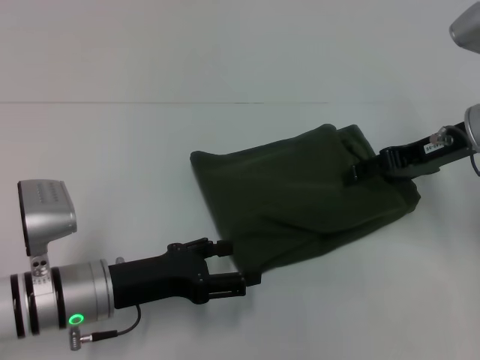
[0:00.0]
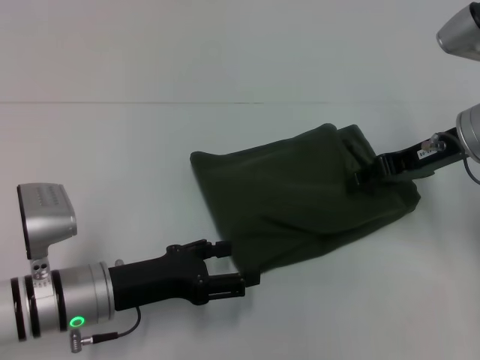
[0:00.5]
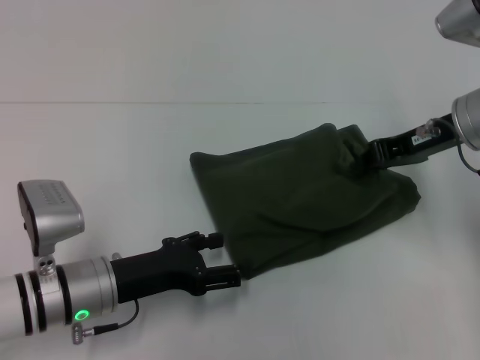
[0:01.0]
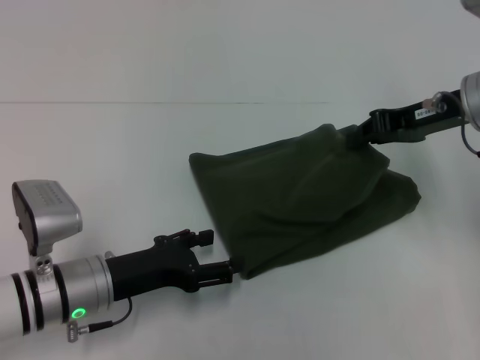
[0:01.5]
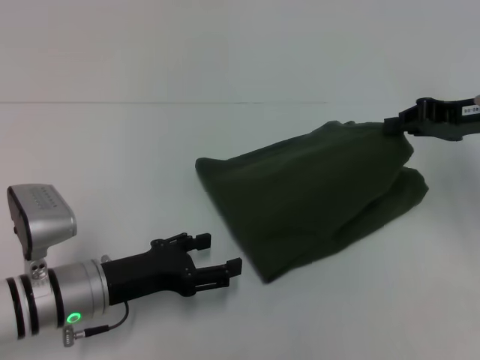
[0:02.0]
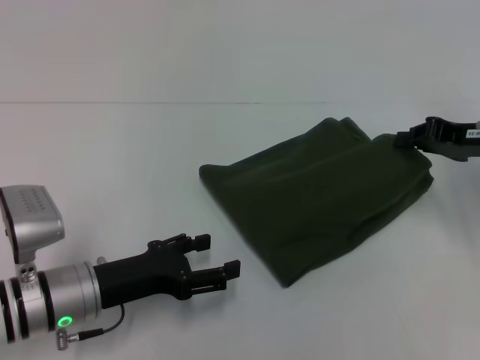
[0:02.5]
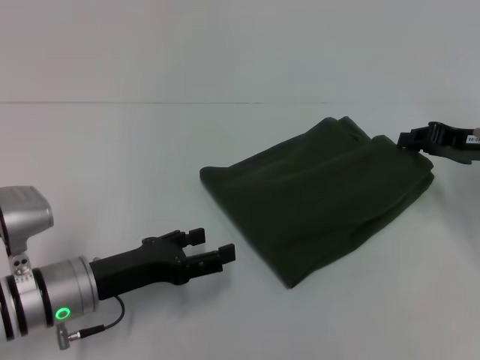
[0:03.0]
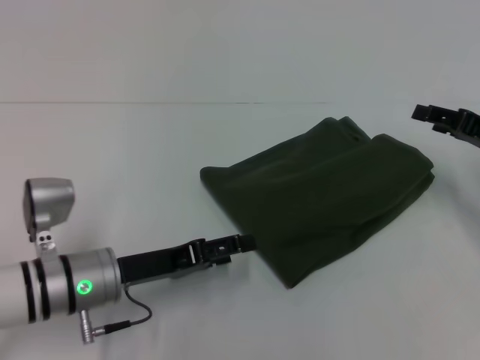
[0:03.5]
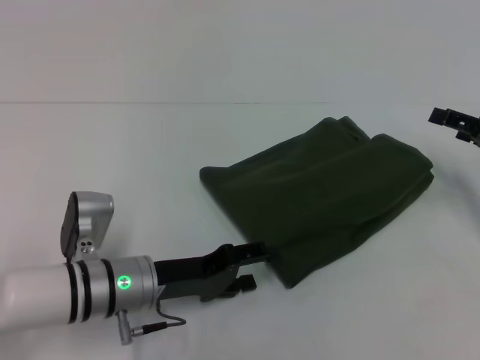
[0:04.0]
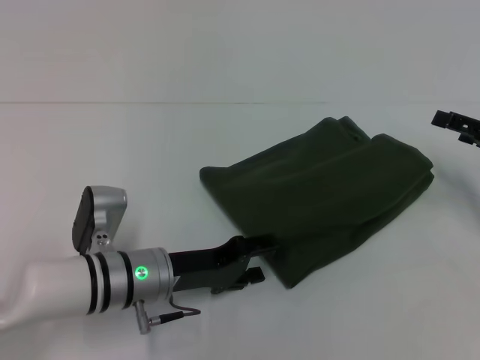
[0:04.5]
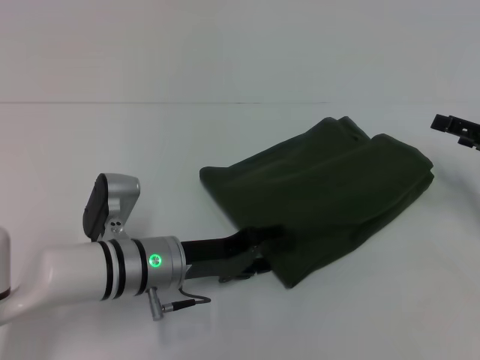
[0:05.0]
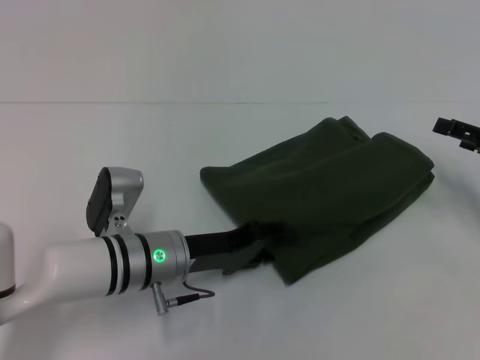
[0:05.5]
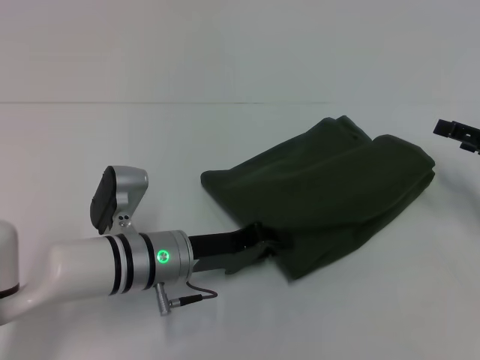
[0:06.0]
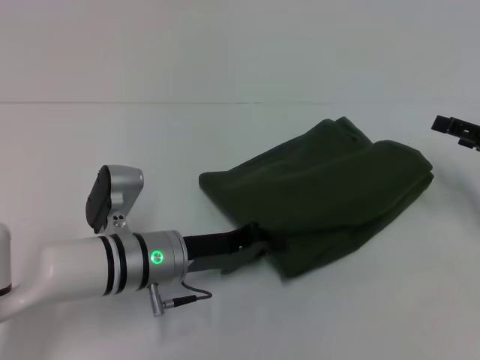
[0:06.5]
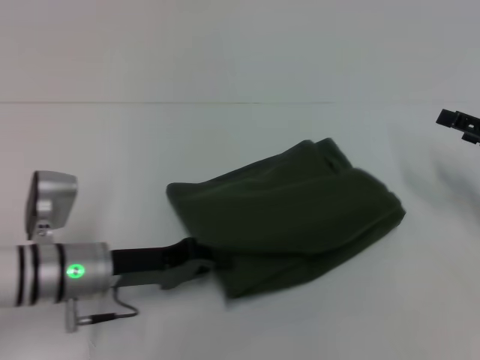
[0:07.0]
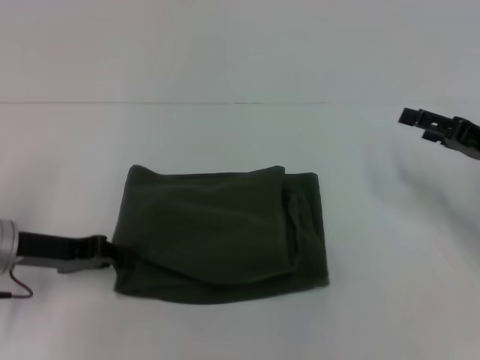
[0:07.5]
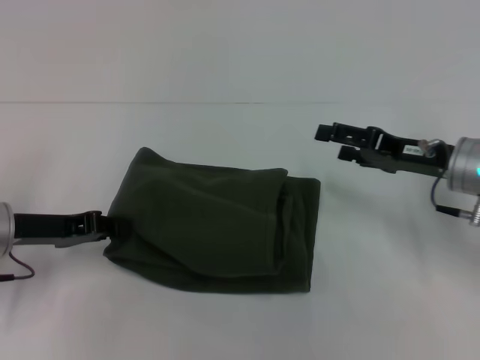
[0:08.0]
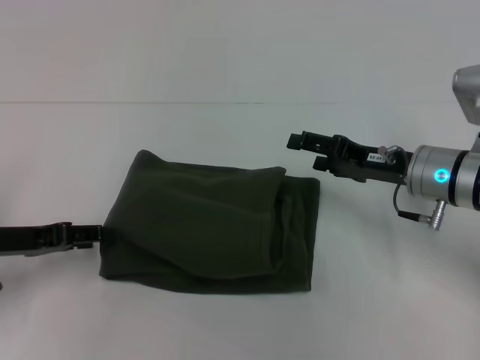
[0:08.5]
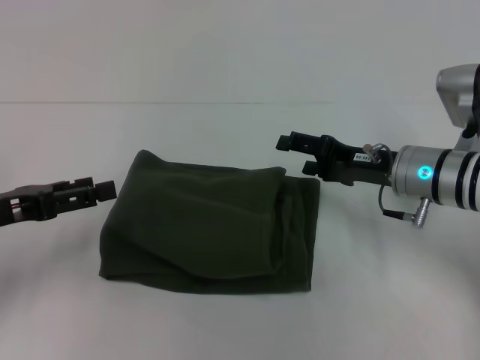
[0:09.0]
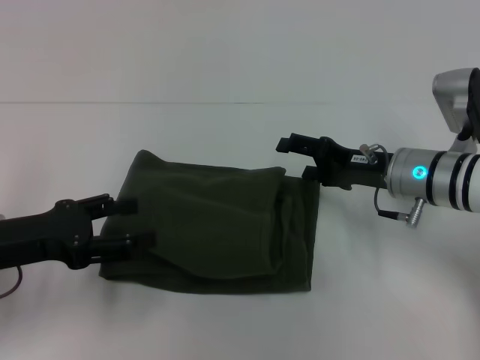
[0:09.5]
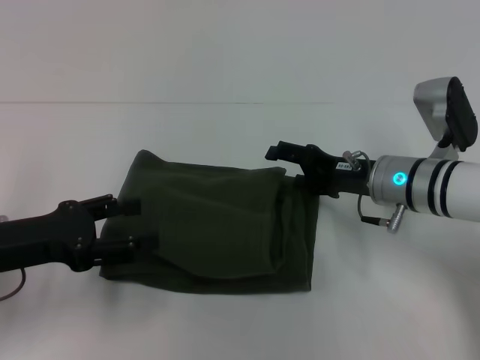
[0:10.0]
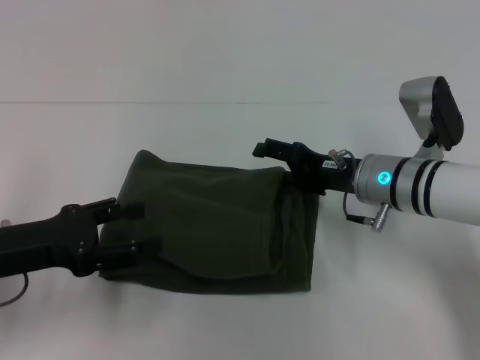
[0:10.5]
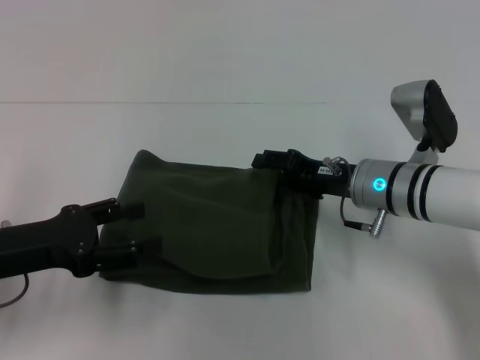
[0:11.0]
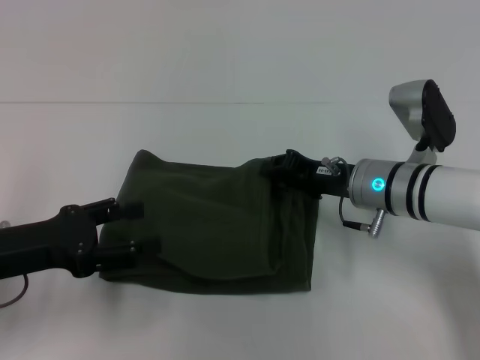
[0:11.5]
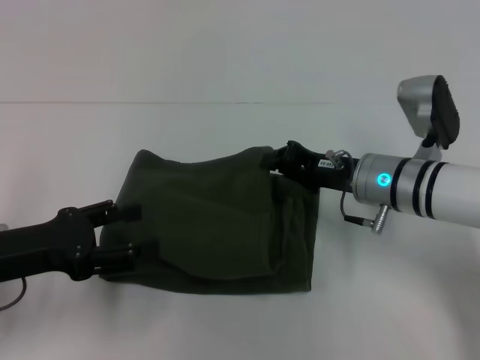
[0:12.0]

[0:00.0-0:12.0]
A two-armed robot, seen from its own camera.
0:00.0 to 0:02.0: The right gripper closes its fingers.
0:02.0 to 0:04.0: The right gripper travels downward and to the right by roughly 10 cm, and opens up.
0:04.0 to 0:06.0: The left gripper closes up.
0:06.0 to 0:08.0: The right gripper shifts about 10 cm to the left, while the left gripper is displaced to the left by approximately 15 cm.
0:08.0 to 0:10.0: The left gripper moves backward, some 5 cm, and opens its fingers, while the right gripper shifts some 5 cm to the left.
0:10.0 to 0:12.0: The right gripper closes its fingers.

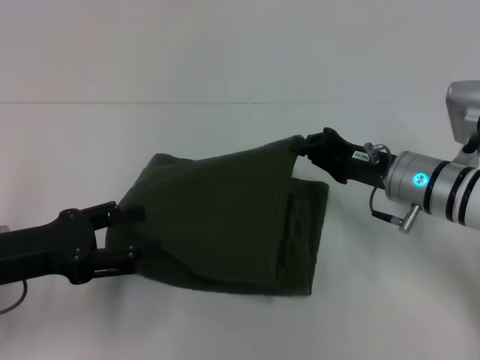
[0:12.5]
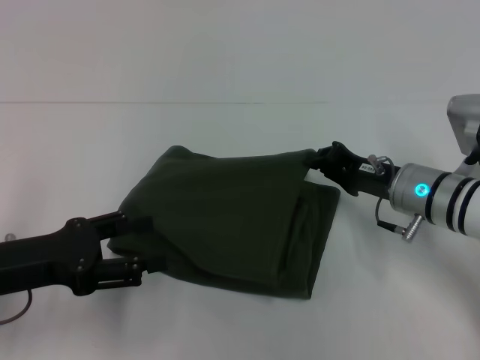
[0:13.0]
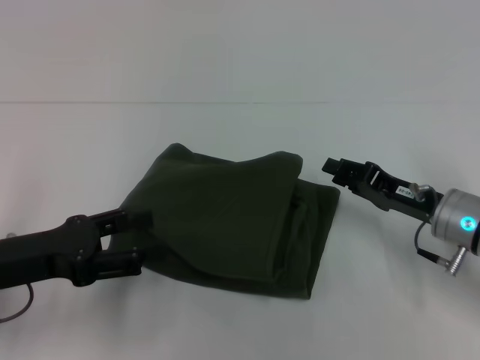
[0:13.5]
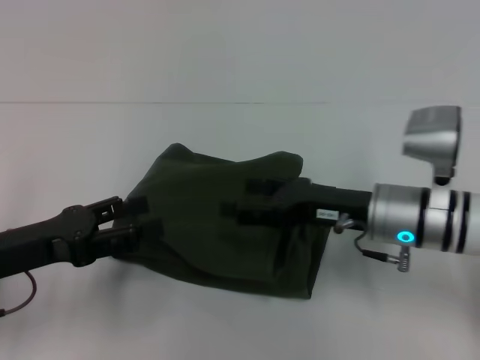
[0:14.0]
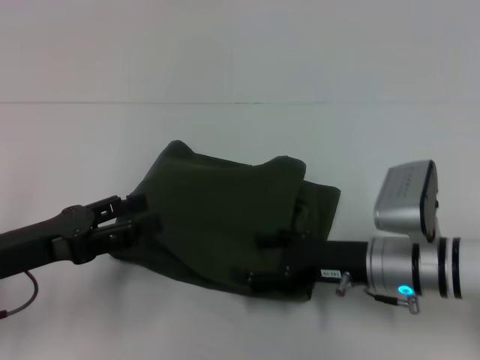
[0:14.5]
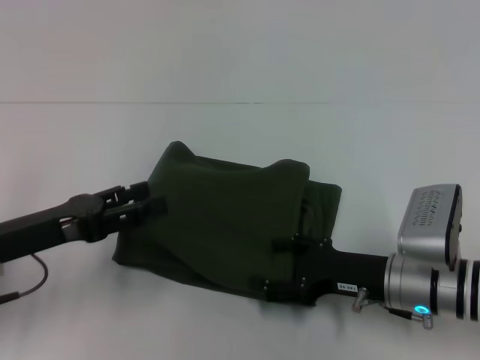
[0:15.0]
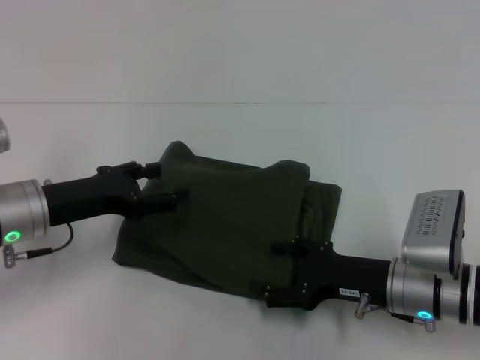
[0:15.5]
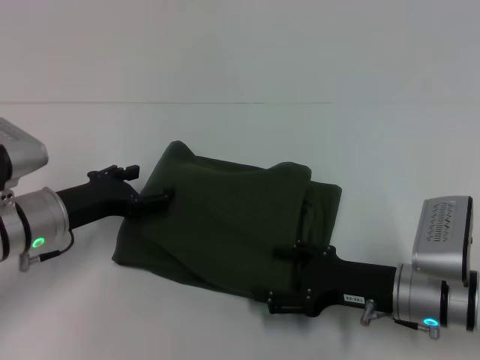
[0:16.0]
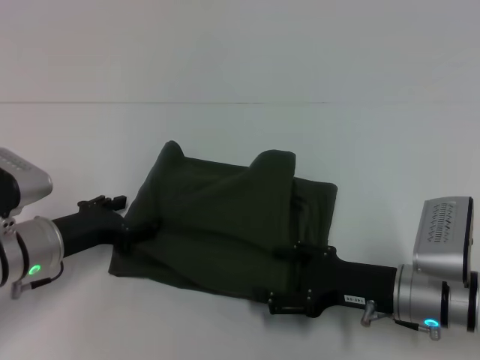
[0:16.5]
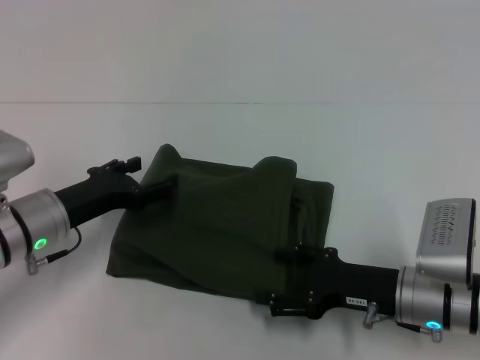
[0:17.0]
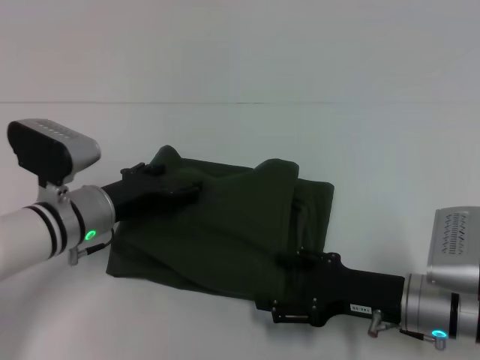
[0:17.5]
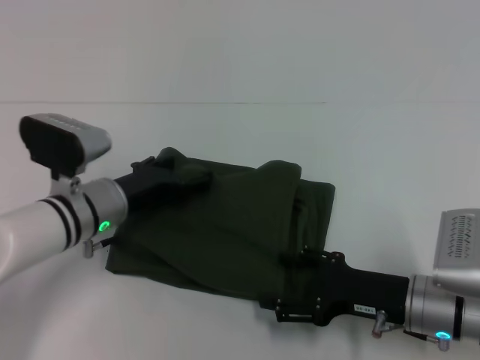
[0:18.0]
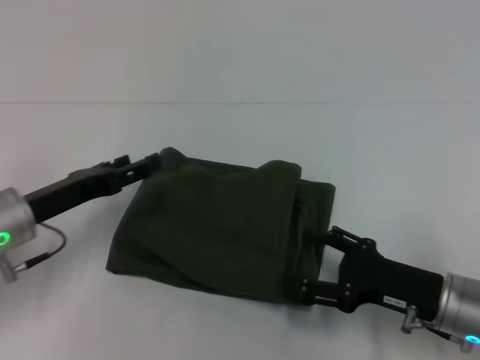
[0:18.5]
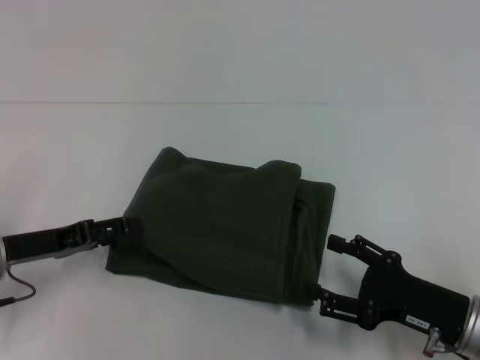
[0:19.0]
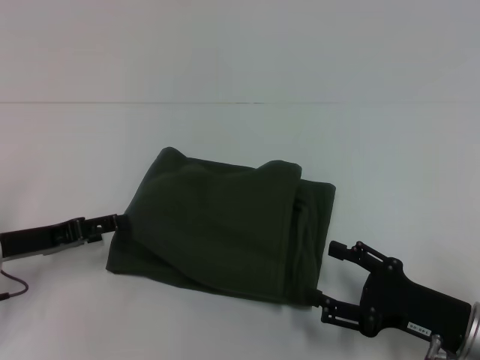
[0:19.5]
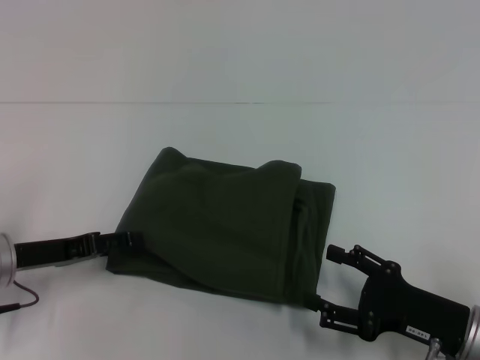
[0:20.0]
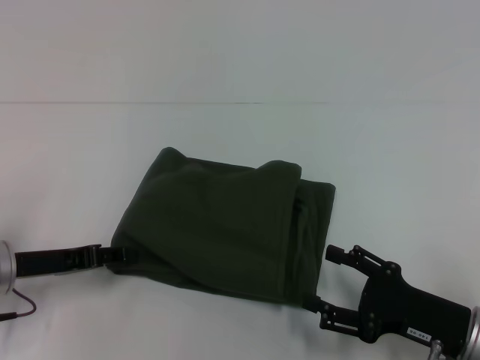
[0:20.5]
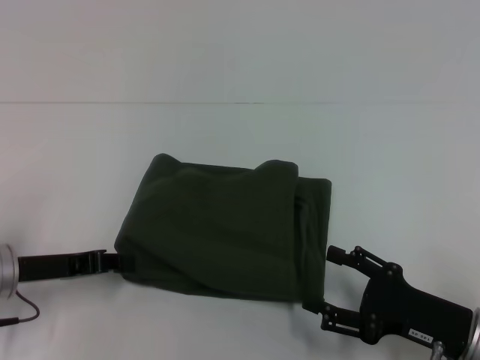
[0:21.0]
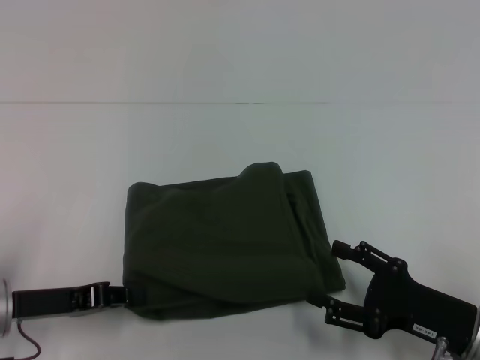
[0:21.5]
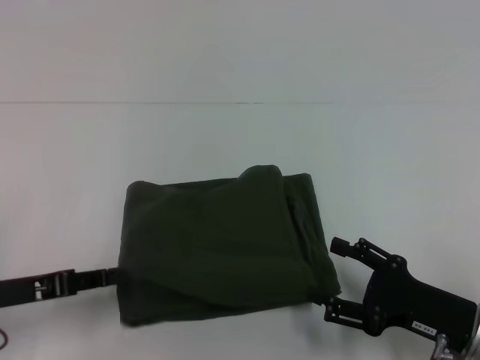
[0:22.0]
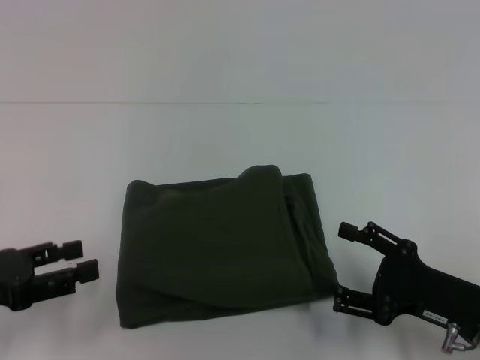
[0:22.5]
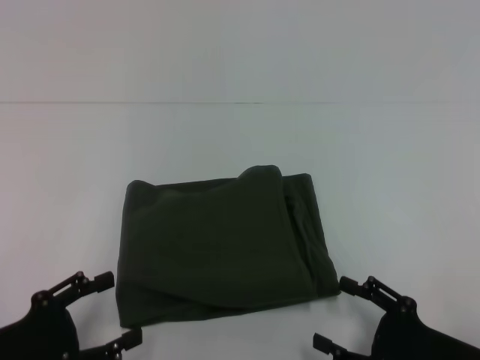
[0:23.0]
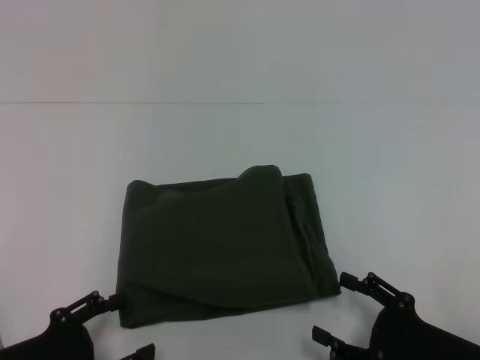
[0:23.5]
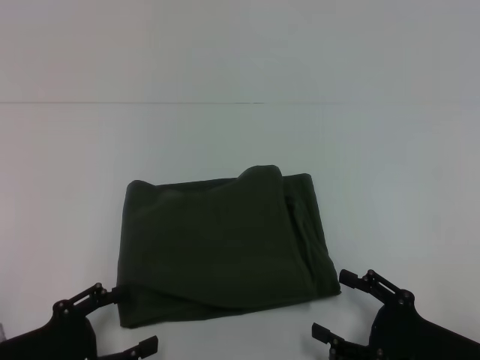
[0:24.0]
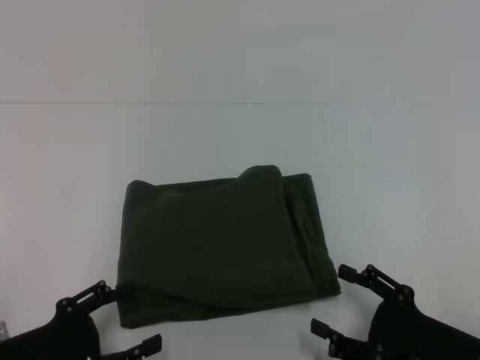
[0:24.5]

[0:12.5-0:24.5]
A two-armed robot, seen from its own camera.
0:12.5 to 0:14.5: The right gripper shifts approximately 5 cm backward, and opens up.
0:14.5 to 0:16.5: The left gripper is displaced forward and downward by roughly 10 cm.
0:16.5 to 0:18.5: The left gripper goes to the right and returns, approximately 5 cm each way.
0:20.5 to 0:22.5: The left gripper moves backward, some 5 cm, and closes and opens again.
0:22.5 to 0:24.5: The left gripper goes roughly 10 cm downward and to the right, and opens up.

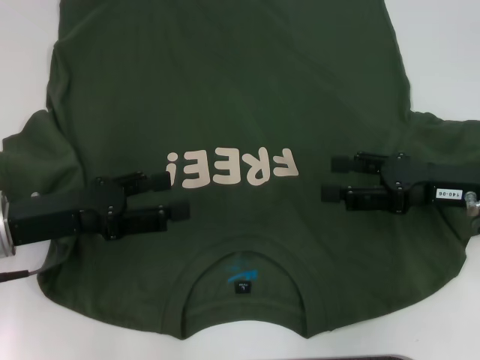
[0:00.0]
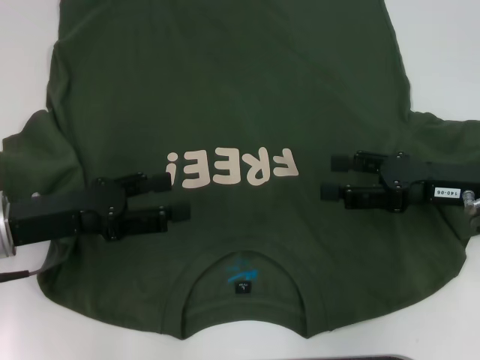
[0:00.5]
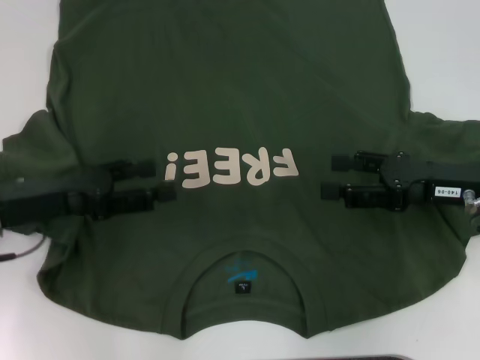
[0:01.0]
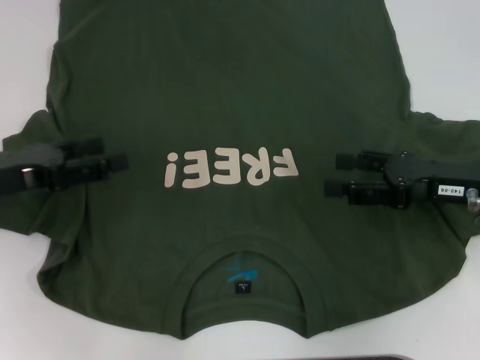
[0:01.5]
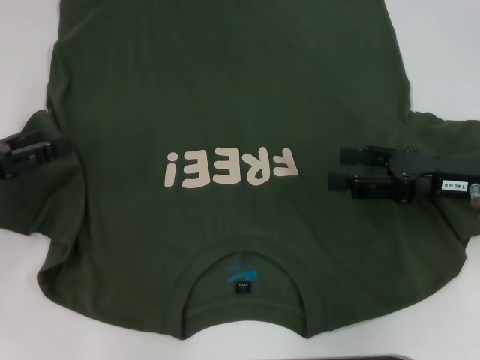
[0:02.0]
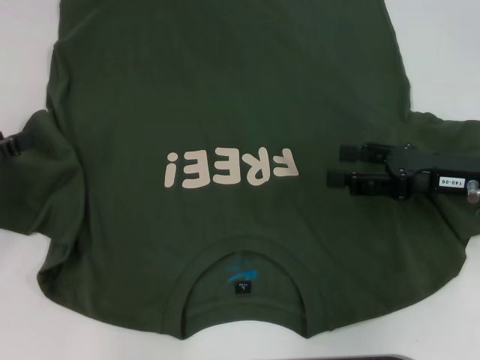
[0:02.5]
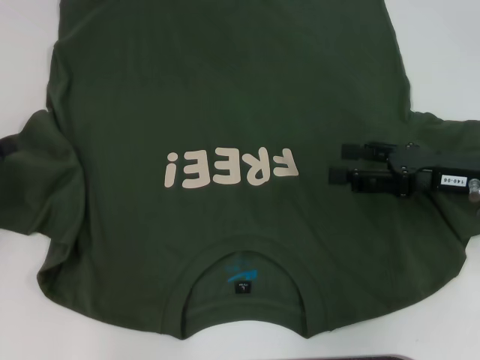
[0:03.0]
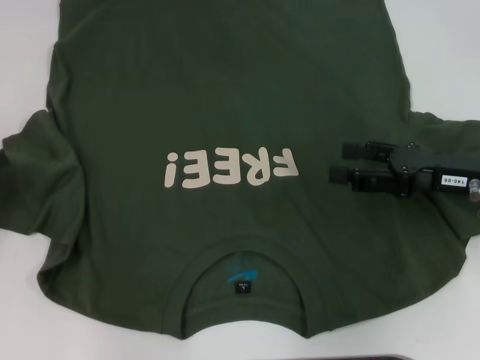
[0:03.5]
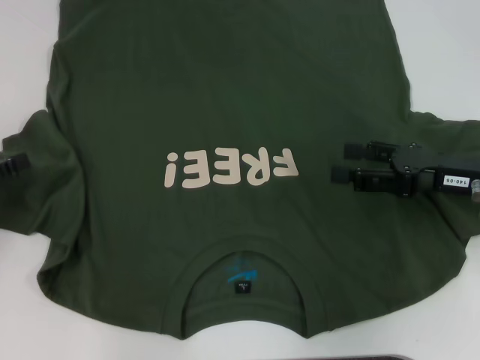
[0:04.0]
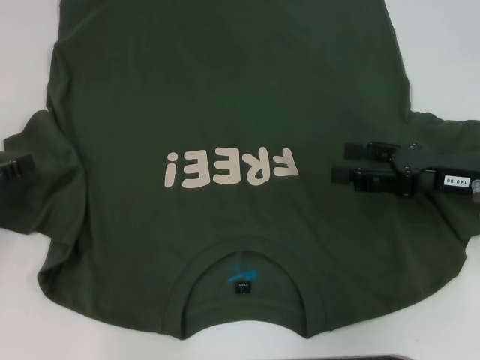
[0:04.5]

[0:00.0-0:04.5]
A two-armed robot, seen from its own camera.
0:00.0 to 0:02.0: The left gripper moves to the left, some 10 cm.
0:02.0 to 0:04.5: The grippers make only small movements.
